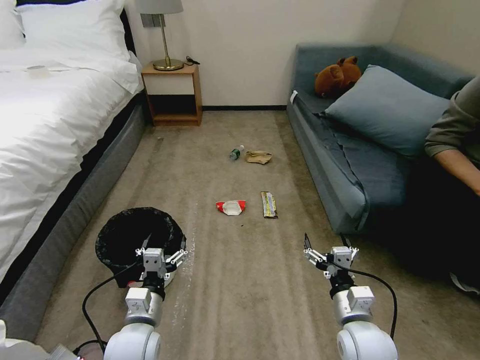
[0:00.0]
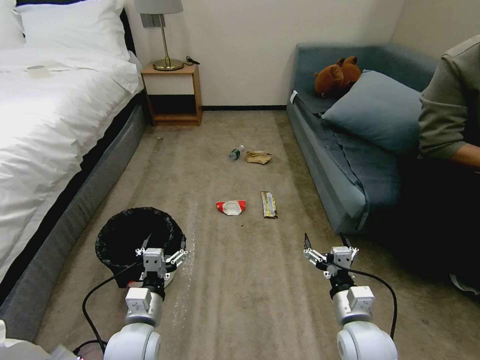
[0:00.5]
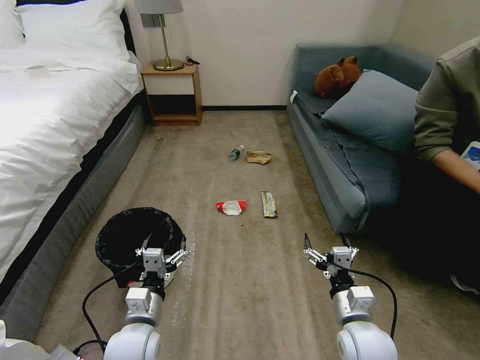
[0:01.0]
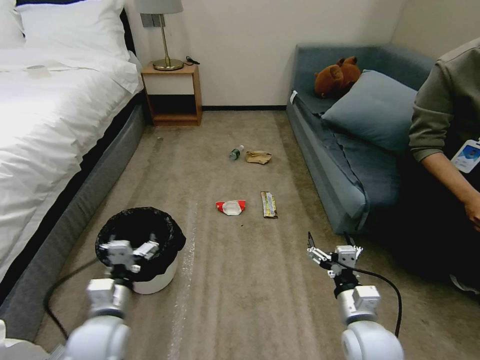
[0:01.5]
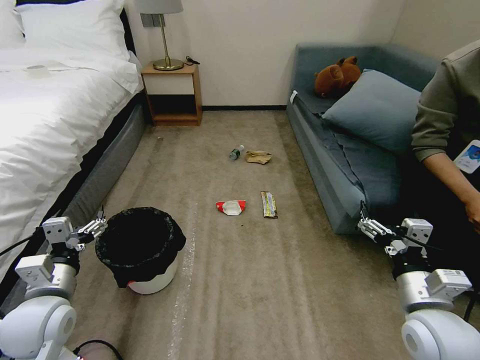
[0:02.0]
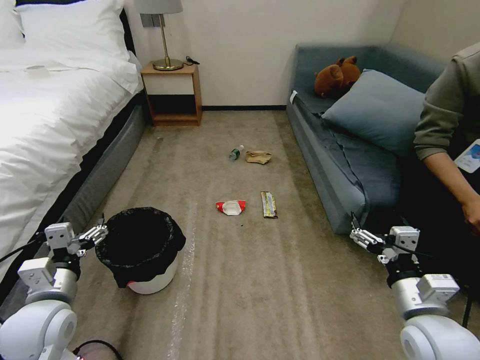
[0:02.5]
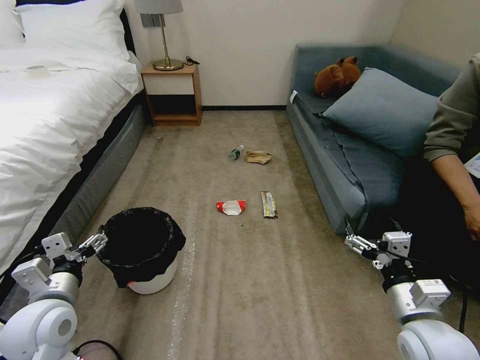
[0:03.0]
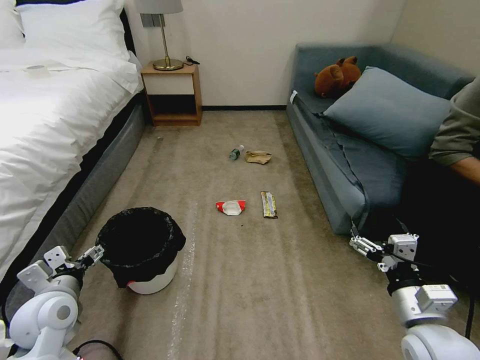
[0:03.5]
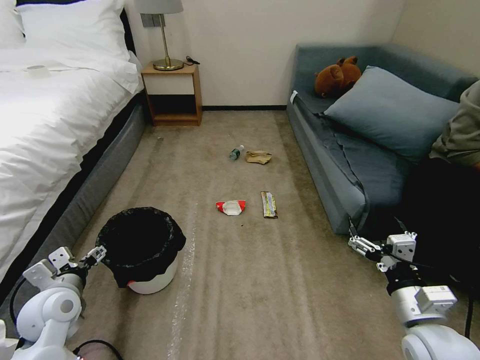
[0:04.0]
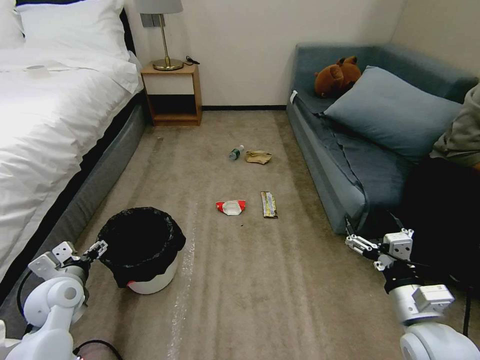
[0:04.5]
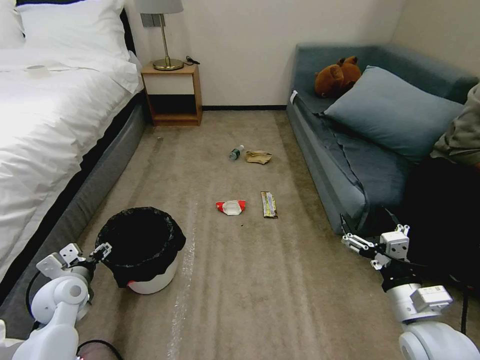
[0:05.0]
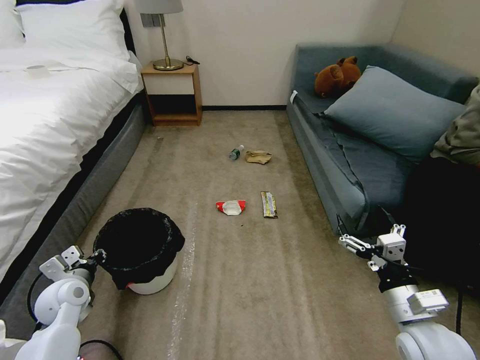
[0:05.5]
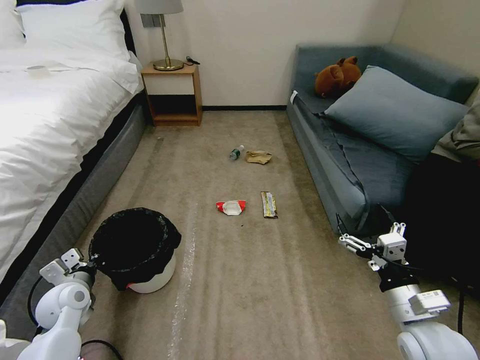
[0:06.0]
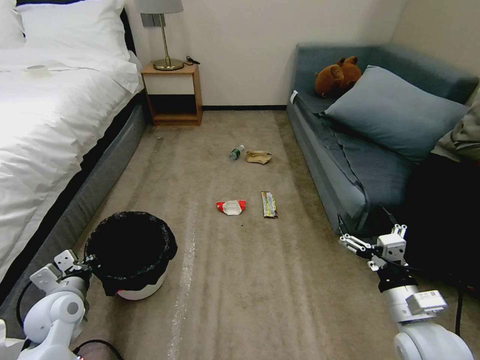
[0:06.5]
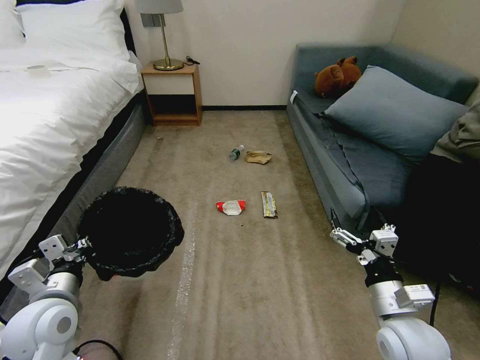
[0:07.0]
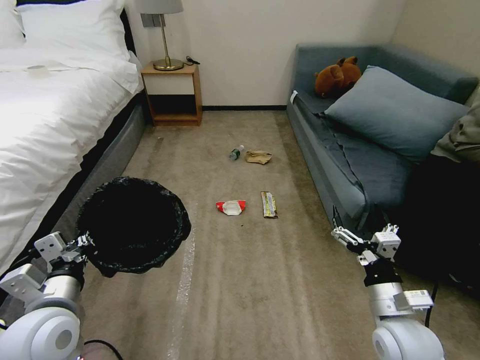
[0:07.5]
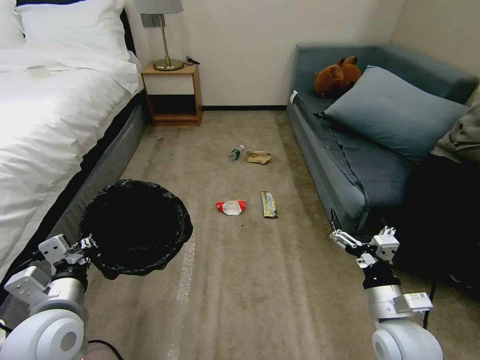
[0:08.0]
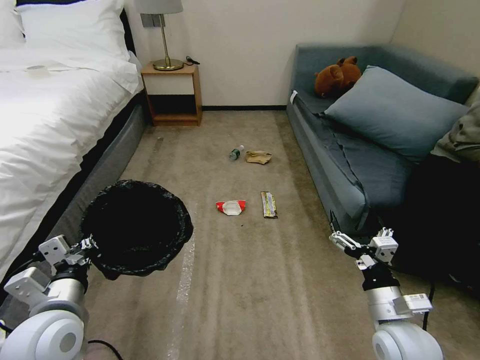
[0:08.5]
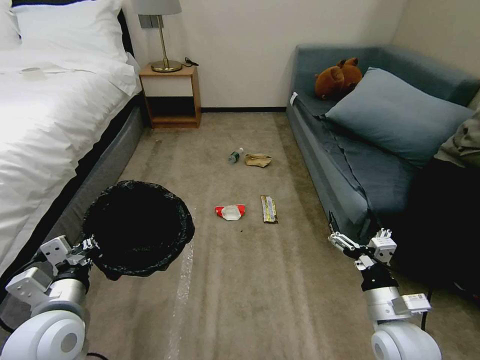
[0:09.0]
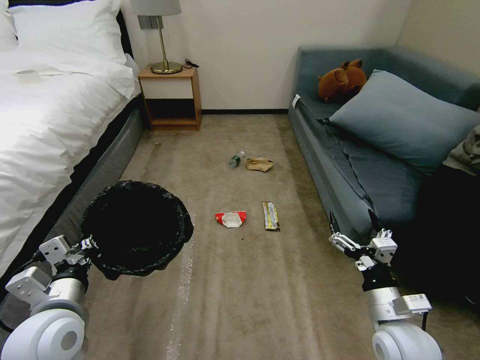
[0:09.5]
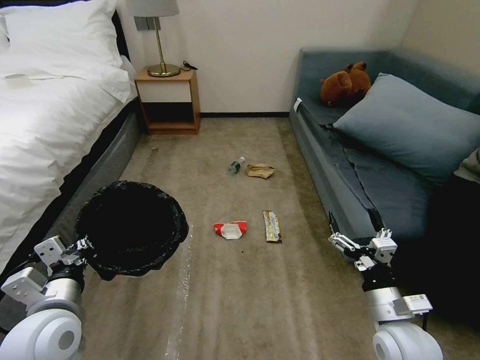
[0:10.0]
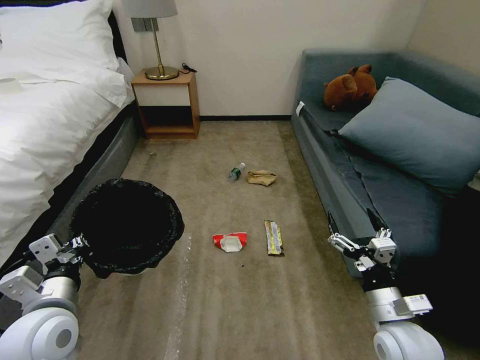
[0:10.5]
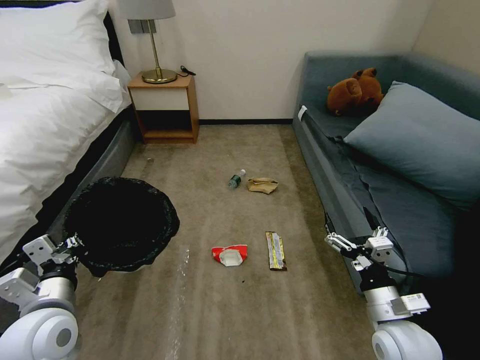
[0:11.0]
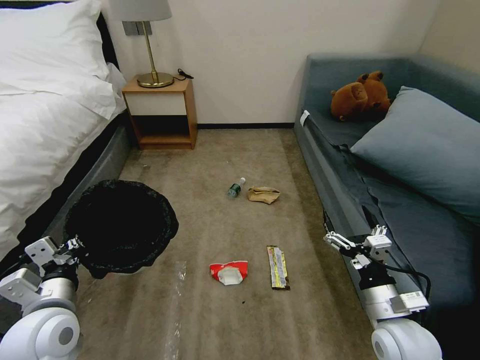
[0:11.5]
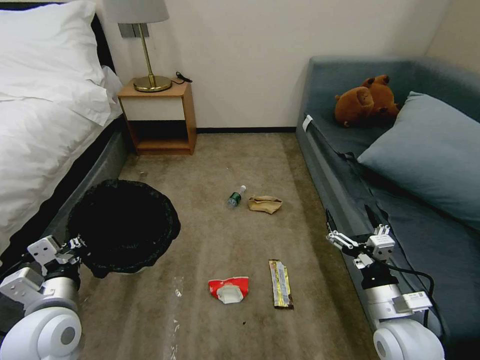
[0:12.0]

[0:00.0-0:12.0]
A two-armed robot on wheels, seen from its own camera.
Task of the whole recording: Pick up the trash bin, then pick up the garbage on the floor and place it into the trash bin.
0:02.0 to 0:04.0: The left gripper ends up about 5 cm from where it was.
0:04.0 to 0:06.0: The left gripper moves downward, about 5 cm, and closes up.
0:06.0 to 0:08.0: The left gripper travels upward, backward and to the right by about 20 cm.

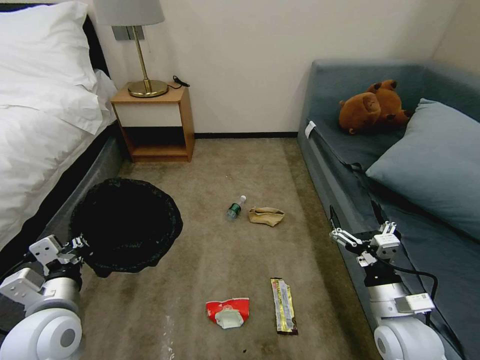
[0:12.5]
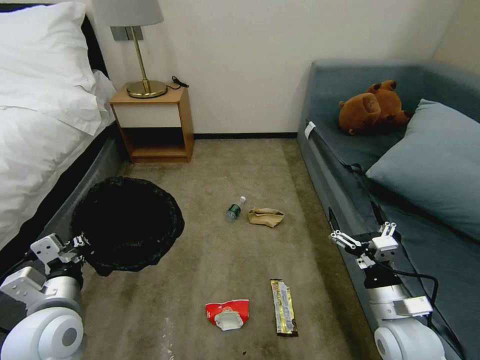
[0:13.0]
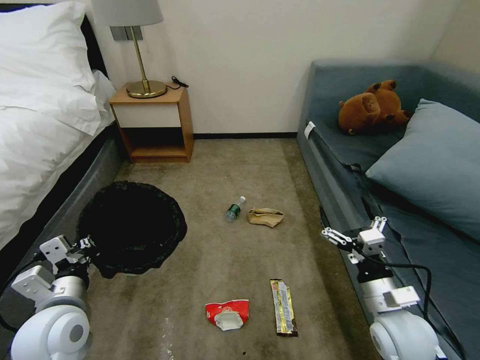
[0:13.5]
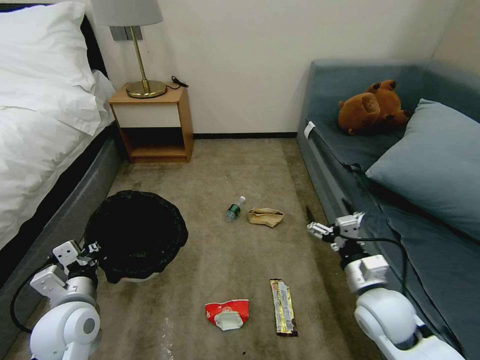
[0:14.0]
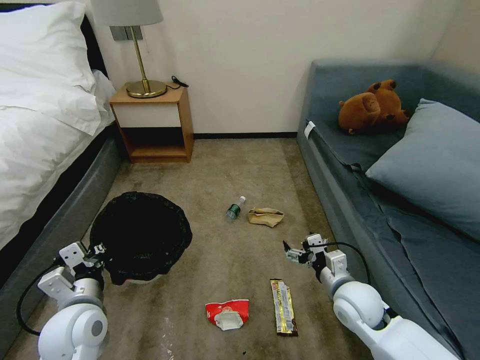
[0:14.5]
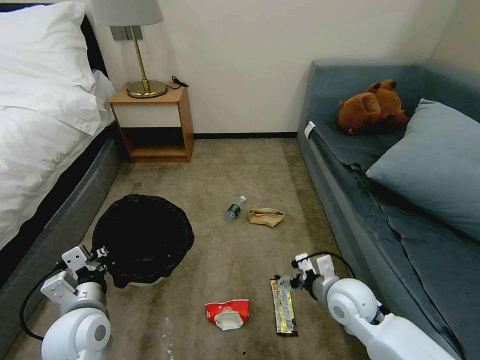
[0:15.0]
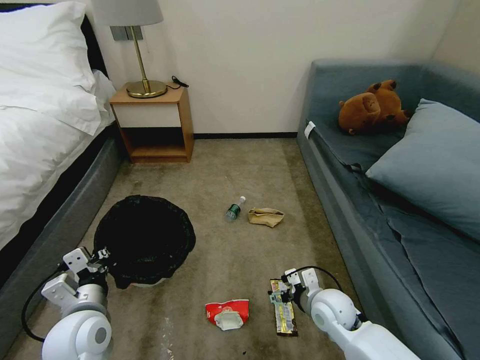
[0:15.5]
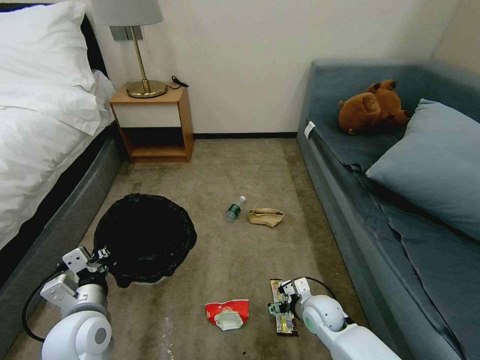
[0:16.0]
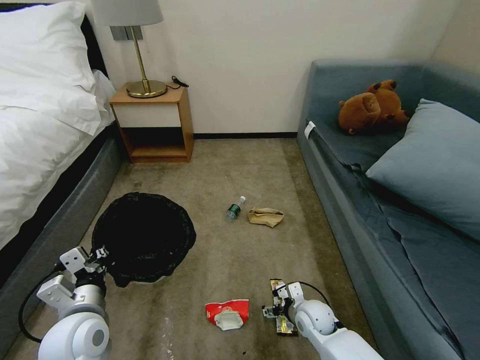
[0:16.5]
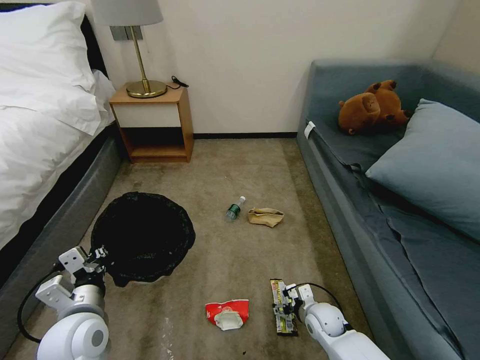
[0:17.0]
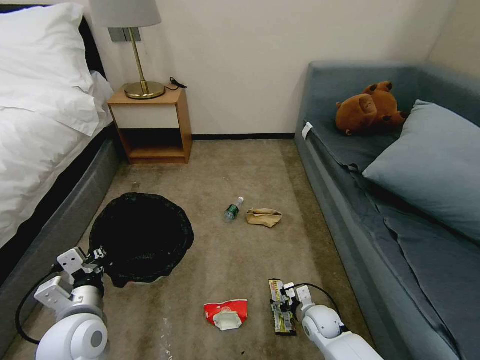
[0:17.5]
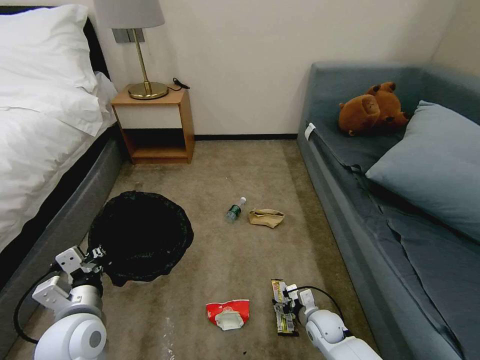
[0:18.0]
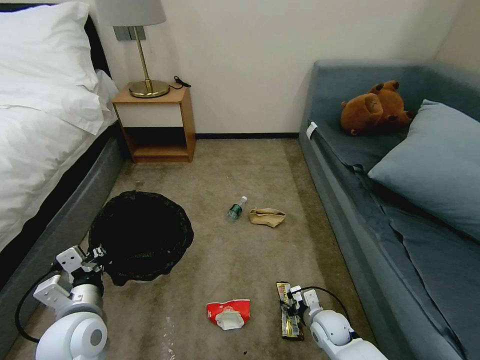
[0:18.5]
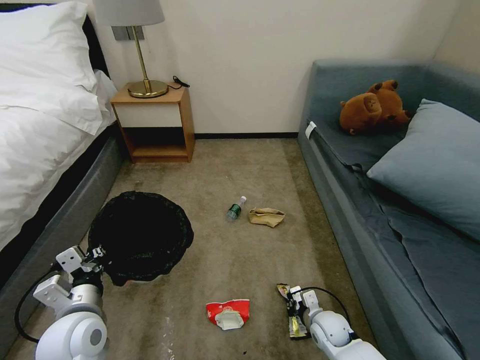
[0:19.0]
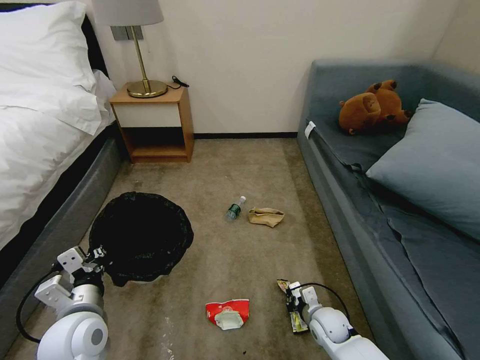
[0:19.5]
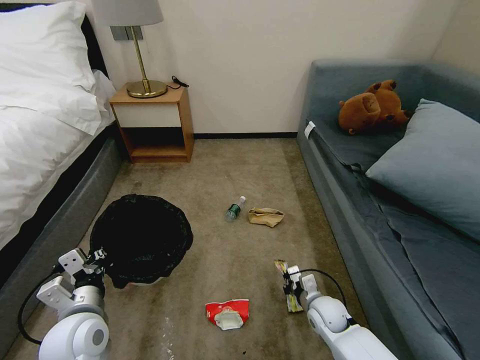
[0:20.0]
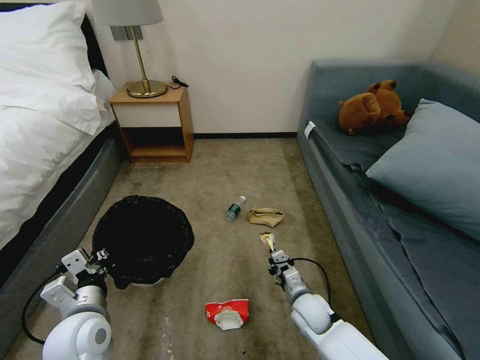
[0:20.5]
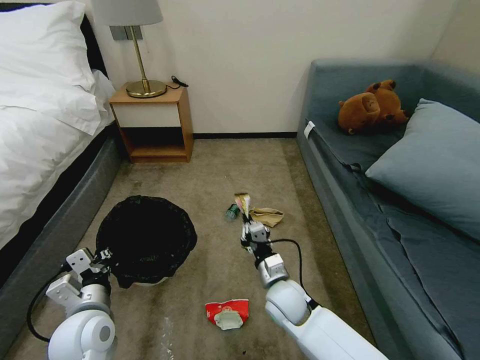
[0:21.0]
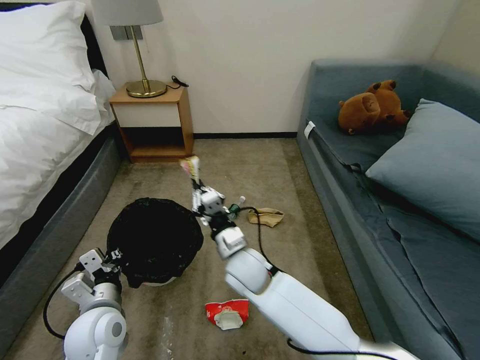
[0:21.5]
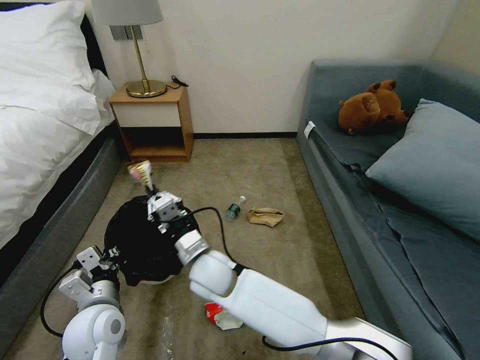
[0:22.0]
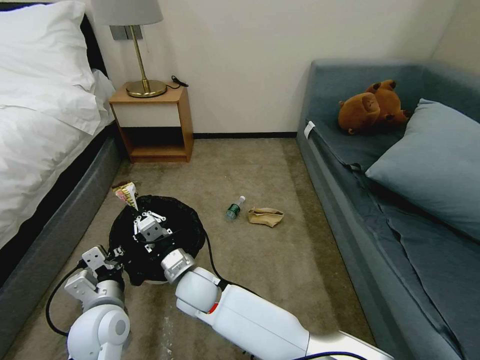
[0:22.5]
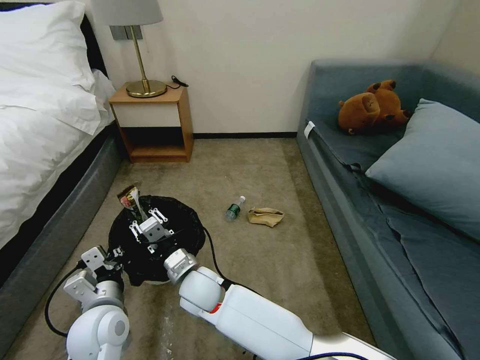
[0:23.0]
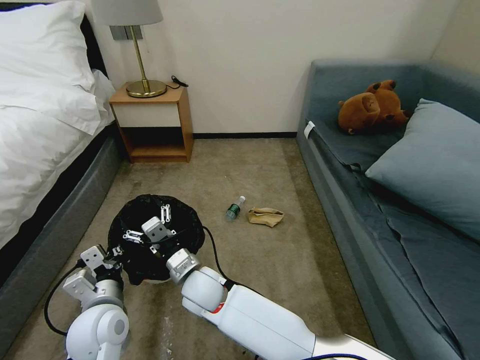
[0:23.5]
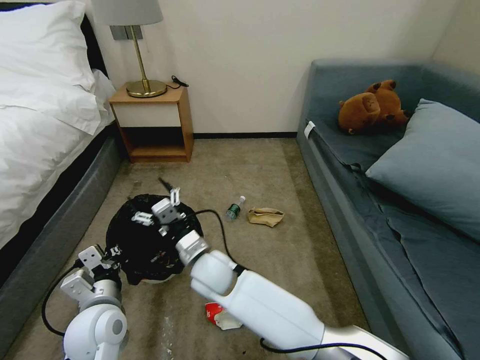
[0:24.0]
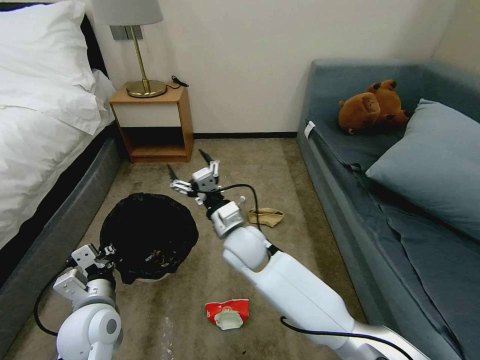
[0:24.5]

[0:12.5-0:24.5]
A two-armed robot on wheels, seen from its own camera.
Task of the whole recording: Pick up the trash bin, then pick up the garbage on the floor and place it into the trash bin.
0:12.5 to 0:14.5: The right gripper goes approximately 5 cm forward.
0:14.5 to 0:16.5: The right gripper heads downward and to the left, covering some 15 cm.
0:16.5 to 0:18.5: The right gripper changes place by approximately 5 cm, and closes.
0:18.5 to 0:20.5: The right gripper shifts by some 5 cm, and closes its fingers.
0:20.5 to 0:22.5: The right gripper moves to the left and upward, some 35 cm.
0:22.5 to 0:24.5: The right gripper goes some 15 cm to the right, upward and forward, and opens up.

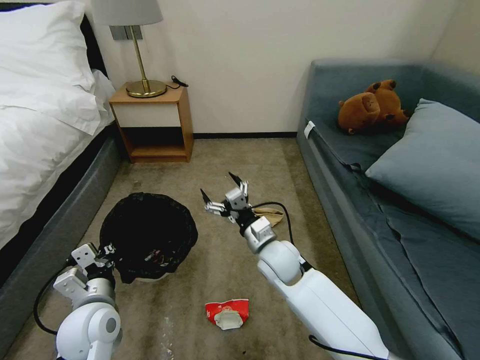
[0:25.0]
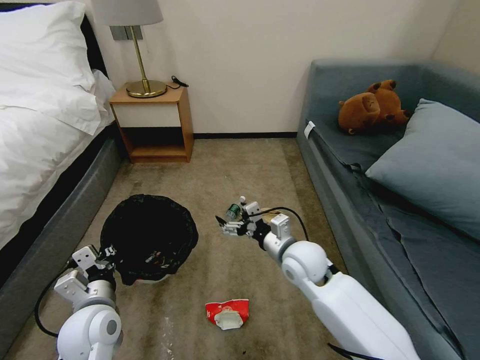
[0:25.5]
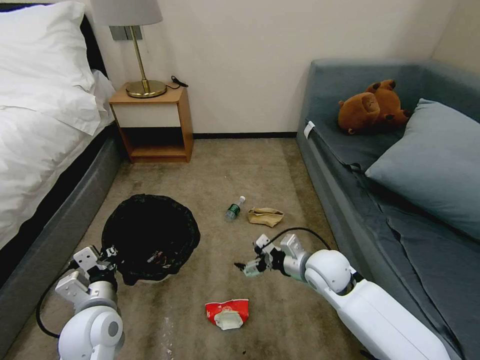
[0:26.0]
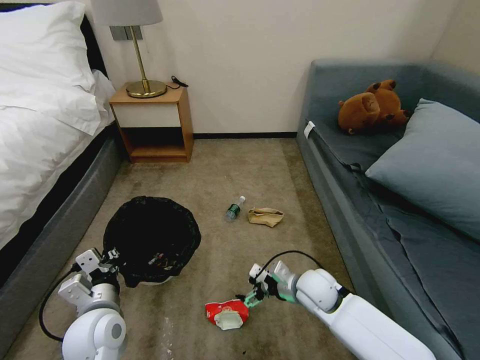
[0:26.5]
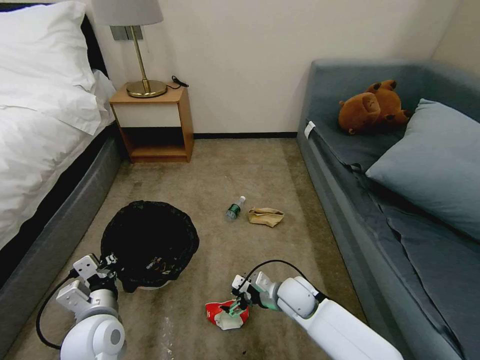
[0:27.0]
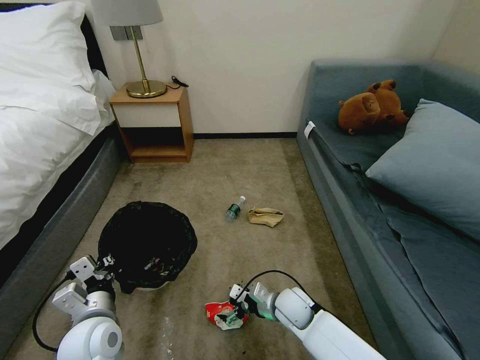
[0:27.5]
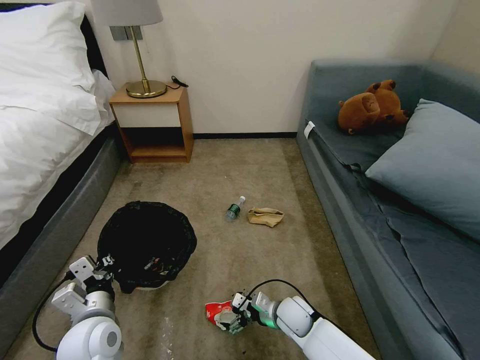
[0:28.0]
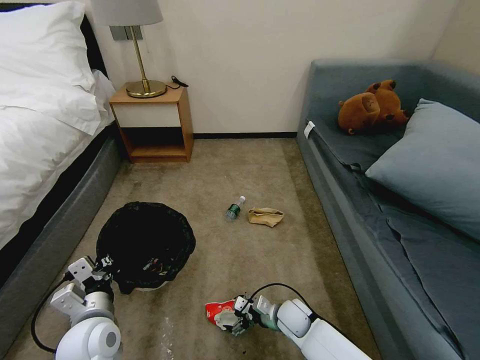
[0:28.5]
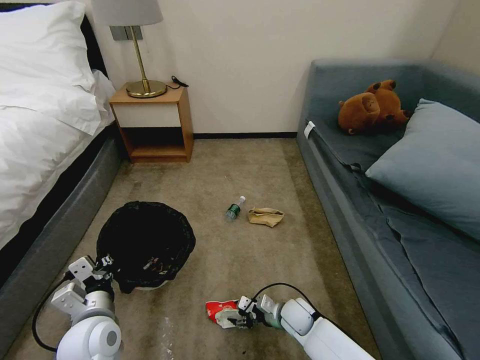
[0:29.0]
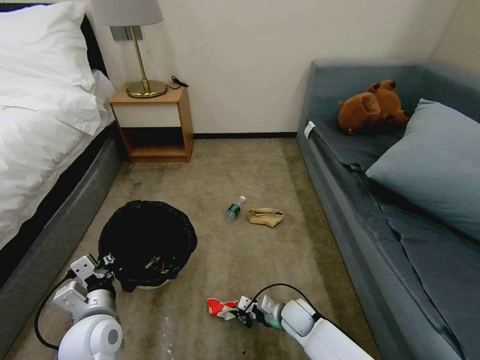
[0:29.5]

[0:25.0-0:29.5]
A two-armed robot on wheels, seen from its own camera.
Task of the whole recording: Pick up the trash bin, then pick up the garbage on the floor and place it into the trash bin.
0:25.0 to 0:27.0: The right gripper shifts about 10 cm downward and to the right.
0:27.0 to 0:29.5: The right gripper heads downward, covering roughly 10 cm, and closes.
